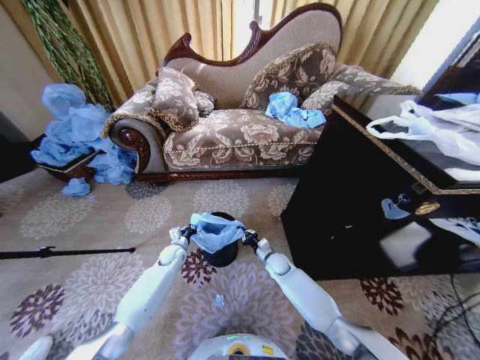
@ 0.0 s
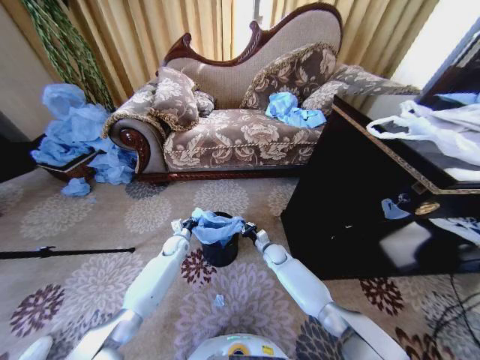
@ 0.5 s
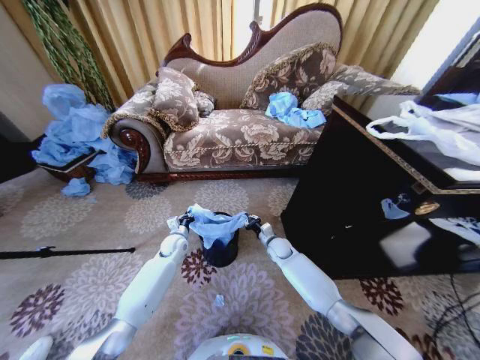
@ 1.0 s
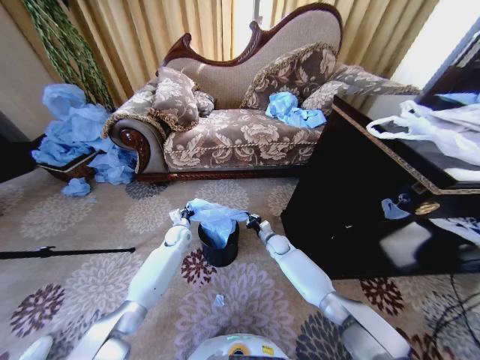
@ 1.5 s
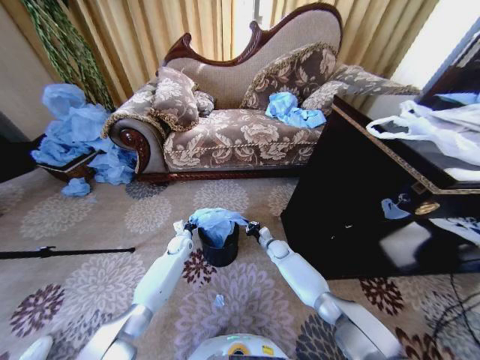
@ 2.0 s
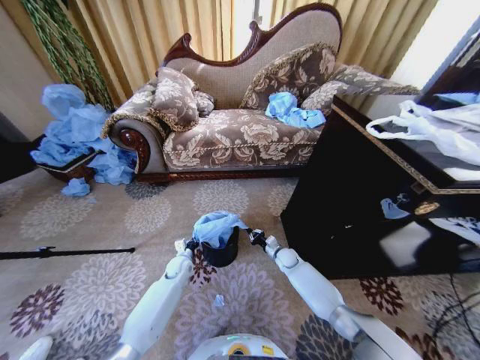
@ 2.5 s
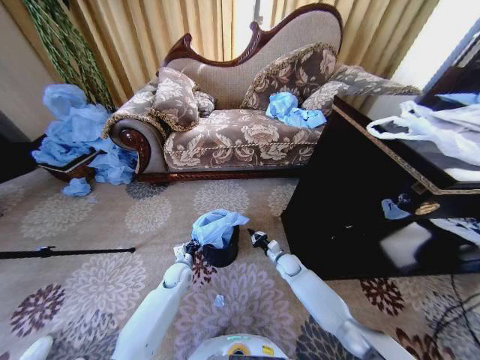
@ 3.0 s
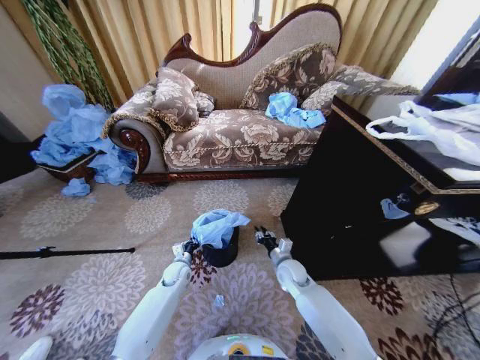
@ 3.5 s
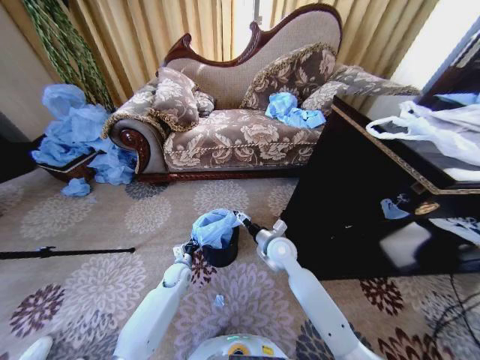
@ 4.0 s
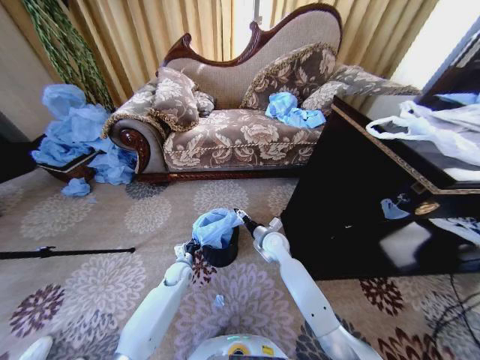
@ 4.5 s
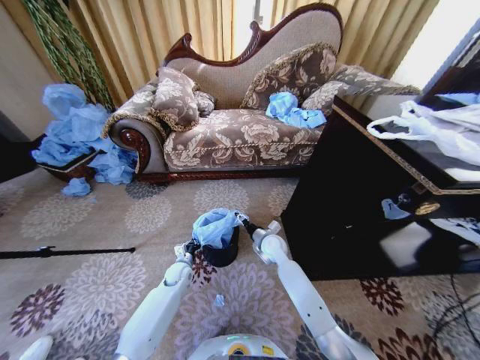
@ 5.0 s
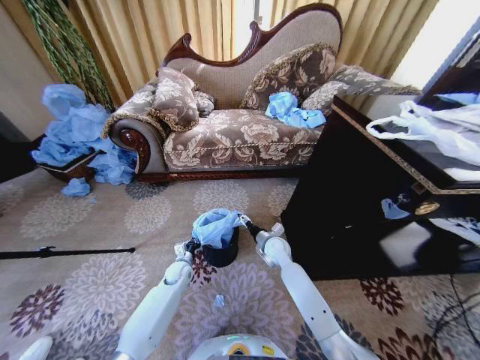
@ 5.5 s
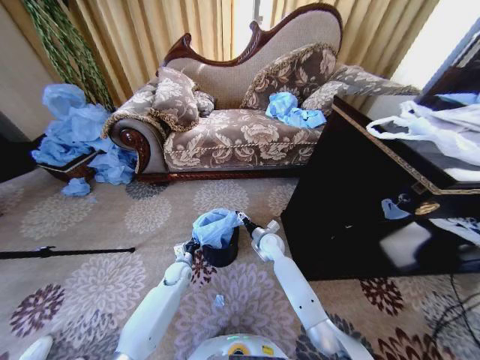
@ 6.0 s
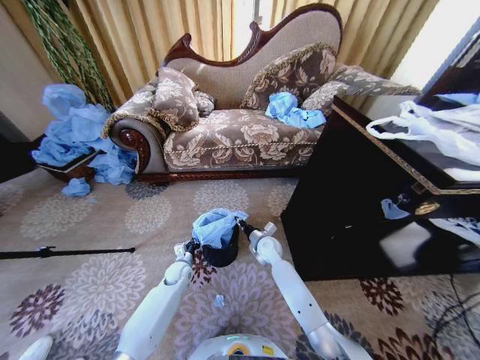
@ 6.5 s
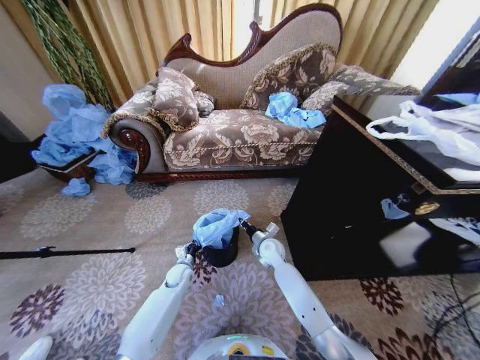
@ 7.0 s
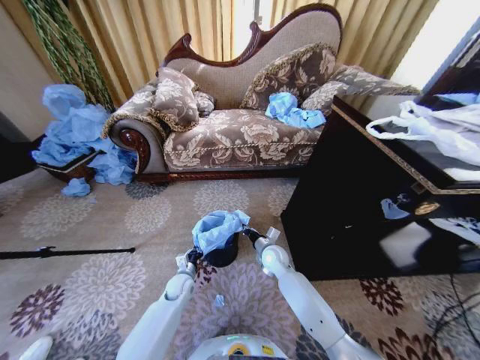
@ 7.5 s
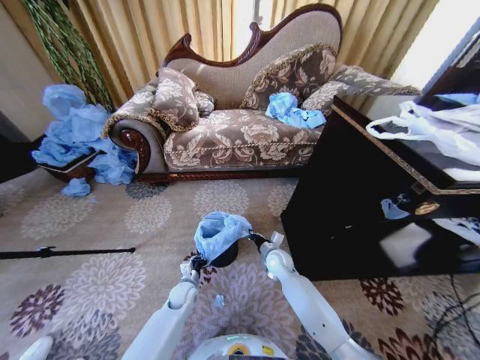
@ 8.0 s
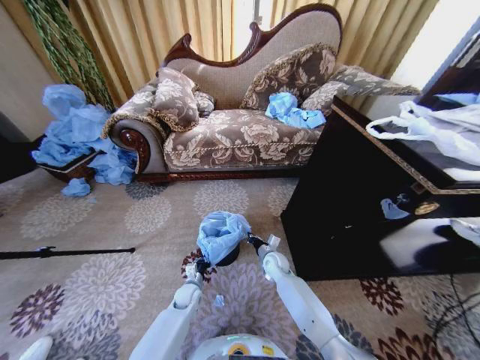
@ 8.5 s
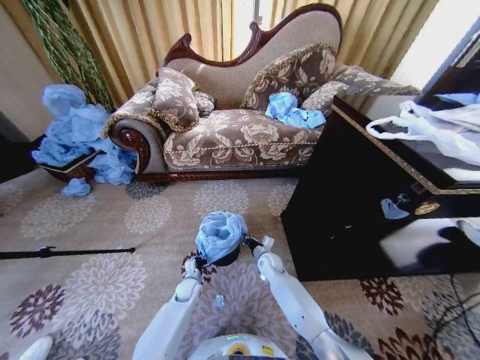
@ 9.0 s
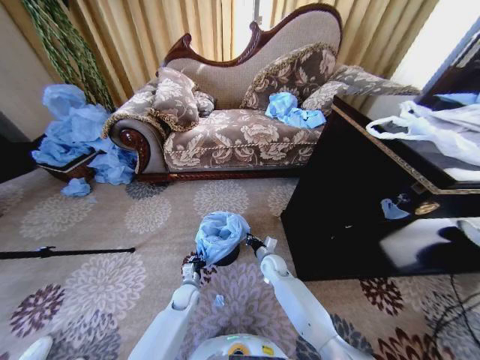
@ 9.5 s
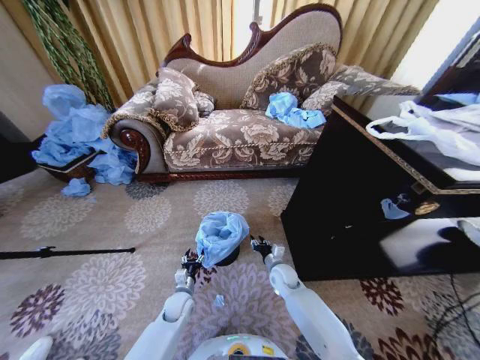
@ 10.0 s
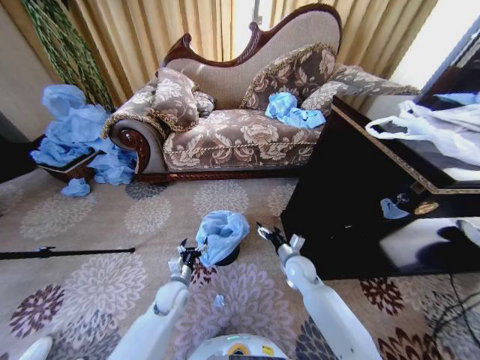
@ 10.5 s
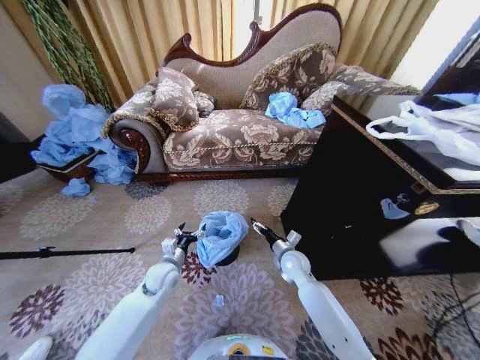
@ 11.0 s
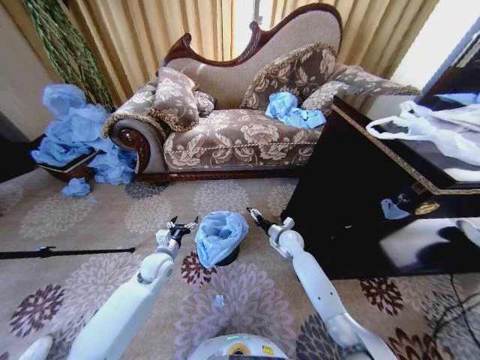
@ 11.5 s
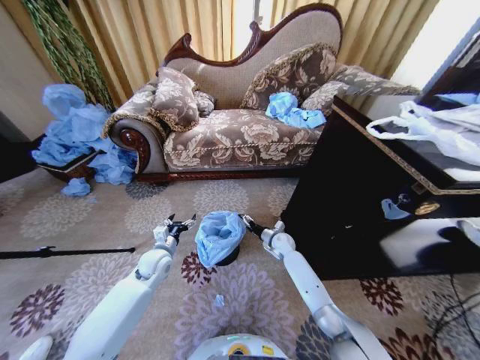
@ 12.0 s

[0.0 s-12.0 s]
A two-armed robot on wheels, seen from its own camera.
Task of the whole recording: Place a garbage bag over the trash bin.
0.0 to 2.0 s: The right gripper heads forward, covering about 5 cm.
2.0 to 4.0 s: The left gripper shifts roughly 10 cm backward; the right gripper is displaced upward and backward by some 20 cm, and opens.
4.0 to 6.0 s: The right gripper goes about 10 cm downward and forward.
6.0 to 8.0 s: The right gripper moves about 5 cm, and closes. The left gripper moves backward, approximately 5 cm.
8.0 to 10.0 s: The left gripper opens, while the right gripper changes place by approximately 5 cm, and opens.
10.0 to 12.0 s: The left gripper travels upward, forward and to the left by approximately 20 cm. The right gripper shifts approximately 10 cm forward, and opens.

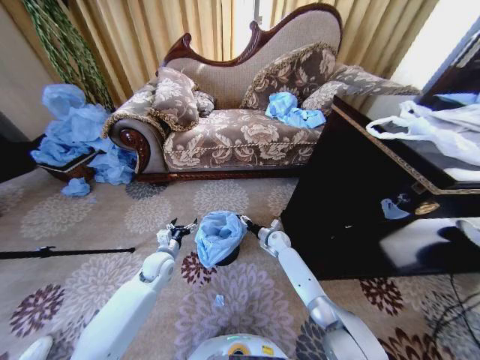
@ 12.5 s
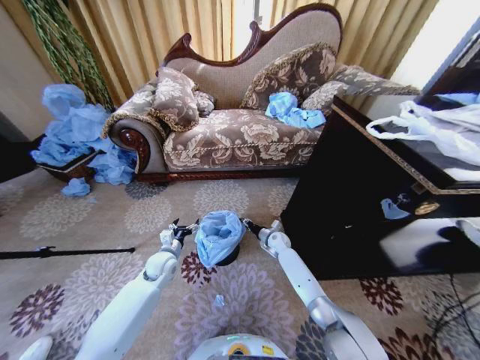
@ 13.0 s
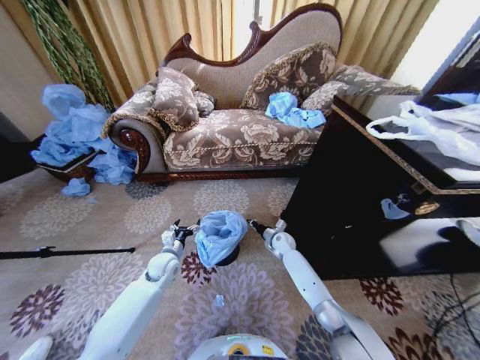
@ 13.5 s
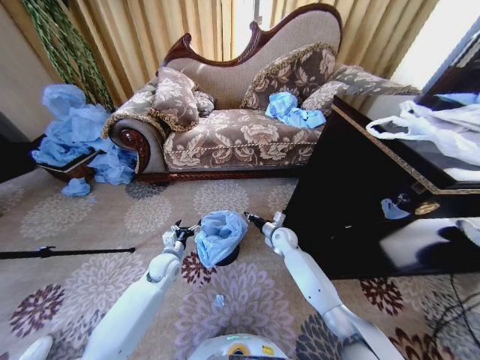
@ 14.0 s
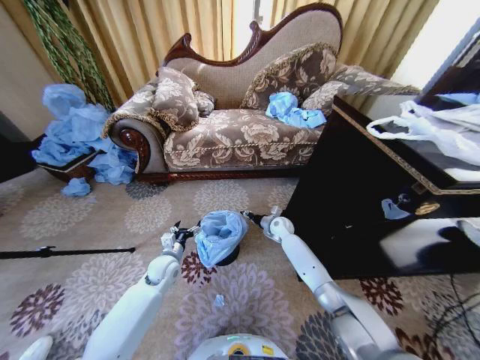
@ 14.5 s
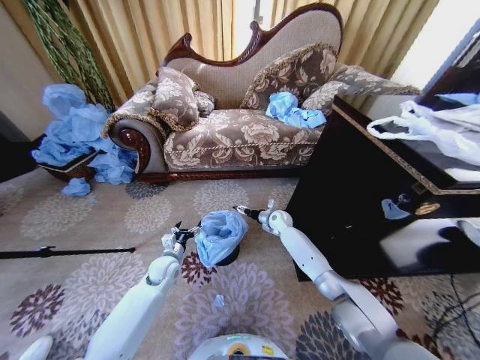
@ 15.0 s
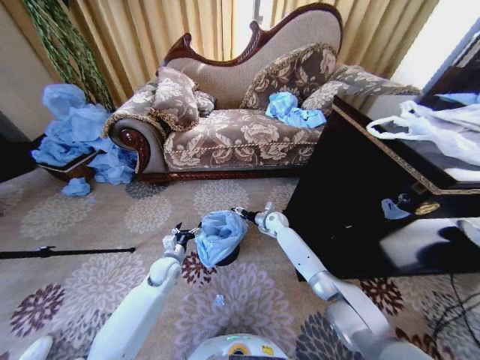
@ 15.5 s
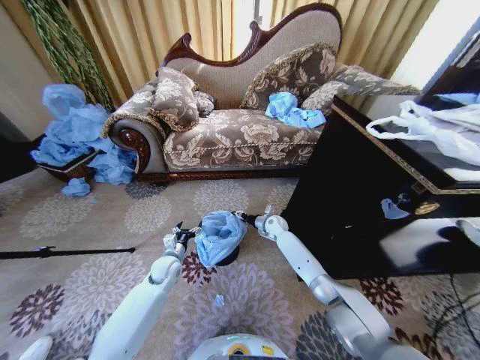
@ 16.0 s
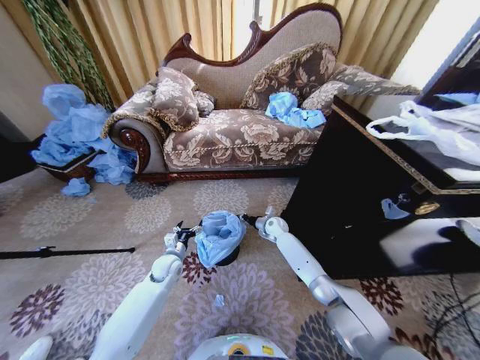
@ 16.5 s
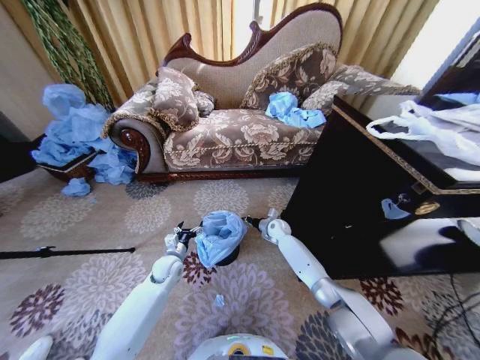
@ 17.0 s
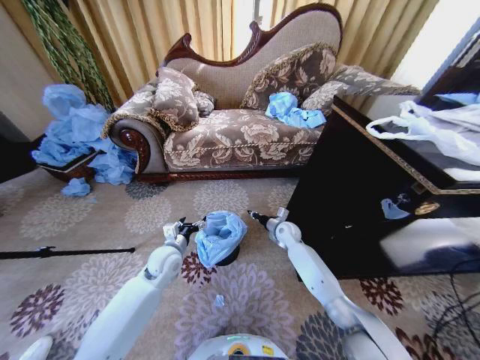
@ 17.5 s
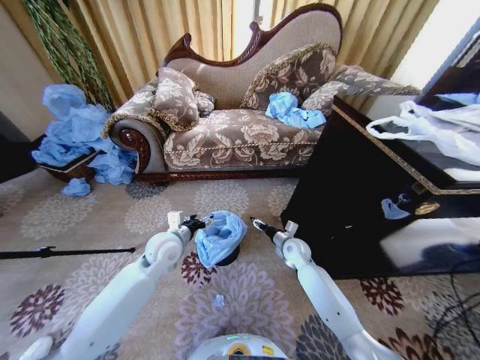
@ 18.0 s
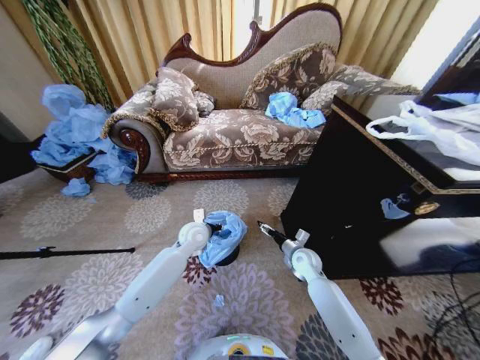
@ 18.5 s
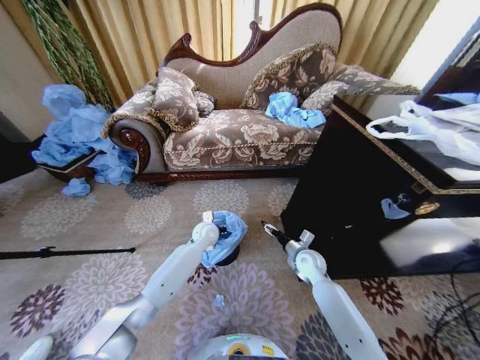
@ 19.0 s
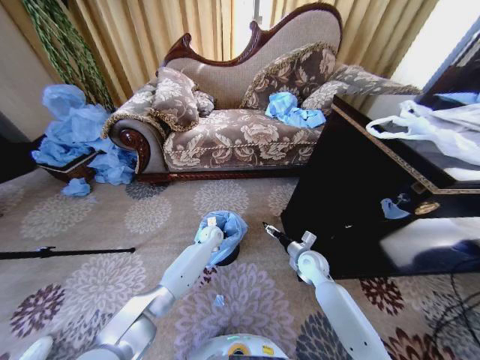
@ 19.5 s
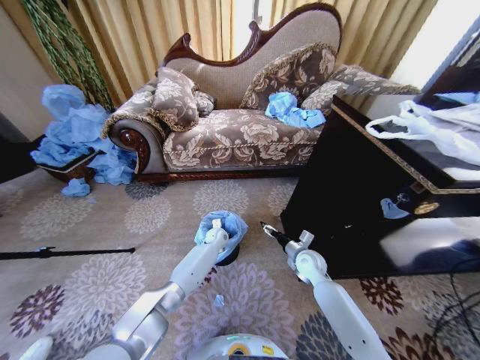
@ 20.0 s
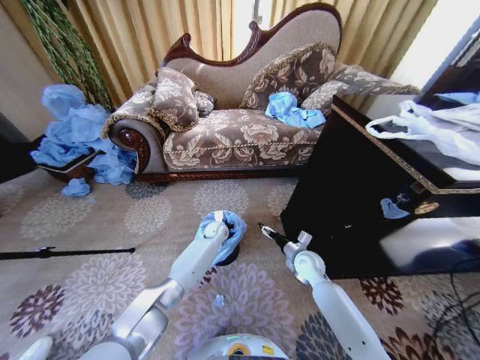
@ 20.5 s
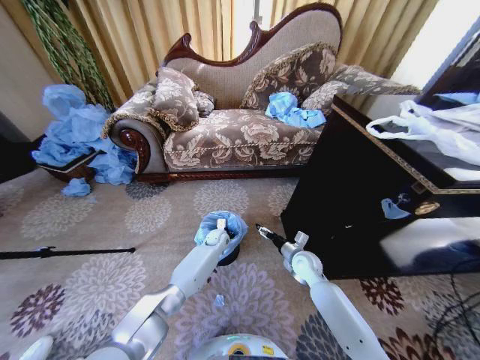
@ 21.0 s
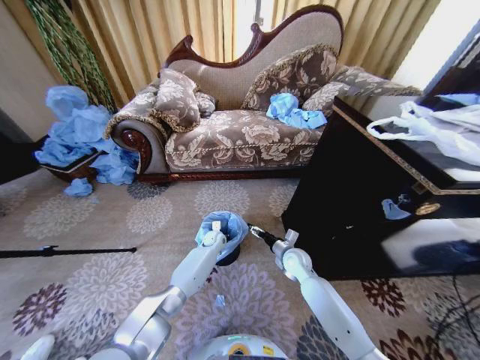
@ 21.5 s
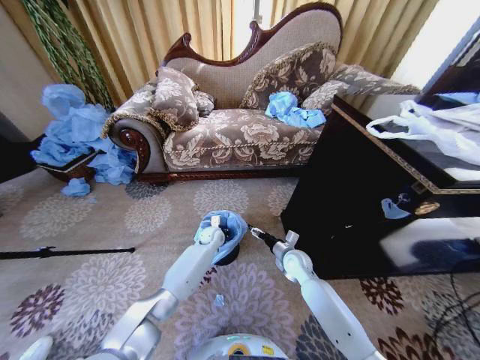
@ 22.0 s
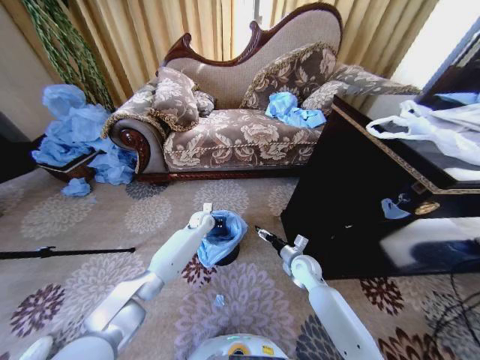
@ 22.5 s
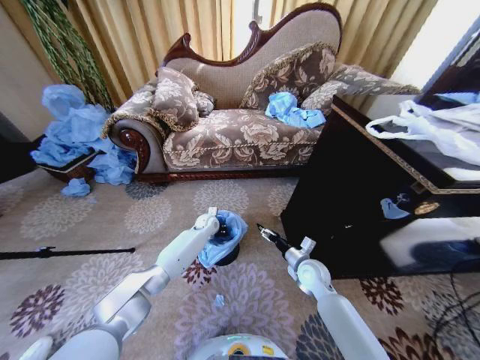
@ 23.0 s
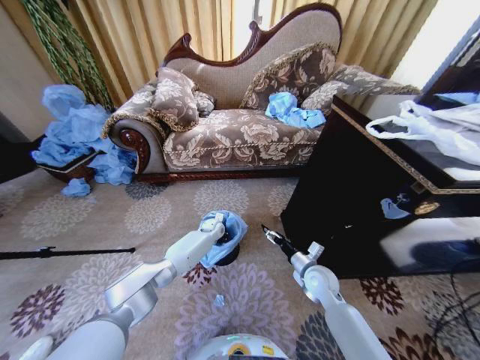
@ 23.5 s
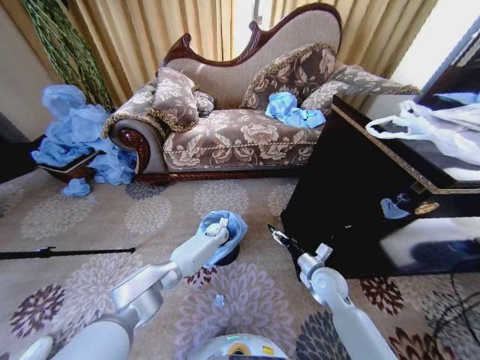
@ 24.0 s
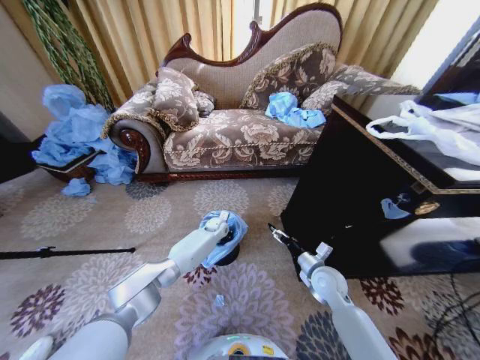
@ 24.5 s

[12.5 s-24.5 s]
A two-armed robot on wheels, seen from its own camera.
Task of the whole recording: Place a garbage bag over the trash bin.
12.5 to 14.5 s: The right gripper goes roughly 5 cm upward, and closes up.
14.5 to 16.5 s: The right gripper opens and closes again.
16.5 to 18.5 s: The right gripper heads backward and to the right, covering some 15 cm, and opens its fingers. Meanwhile the left gripper moves upward, to the right and forward, roughly 15 cm, and closes.
18.5 to 20.5 s: The left gripper travels downward, forward and to the right by roughly 15 cm, and closes its fingers.
20.5 to 22.5 s: The left gripper moves to the left, some 5 cm.
22.5 to 24.5 s: The left gripper is displaced to the right and downward by approximately 10 cm; the right gripper moves backward, approximately 5 cm.

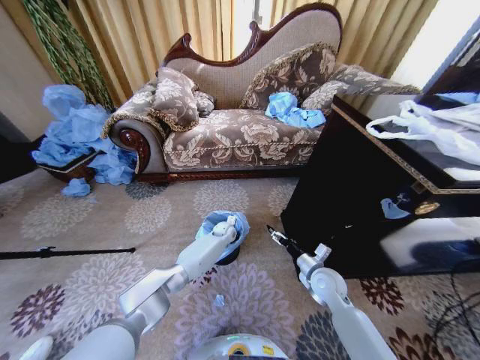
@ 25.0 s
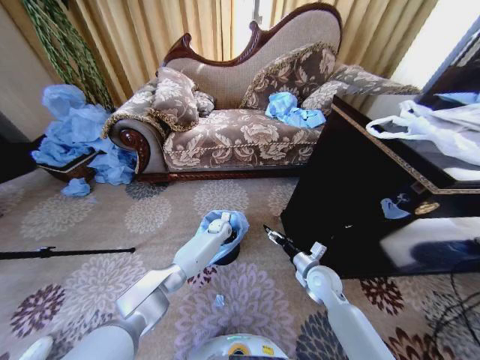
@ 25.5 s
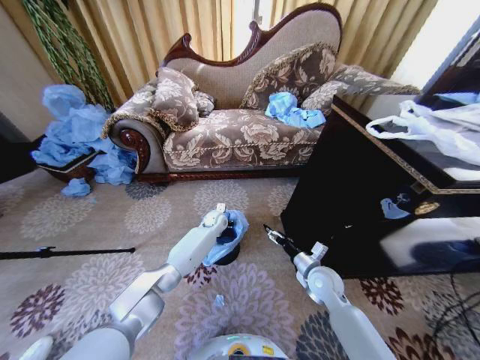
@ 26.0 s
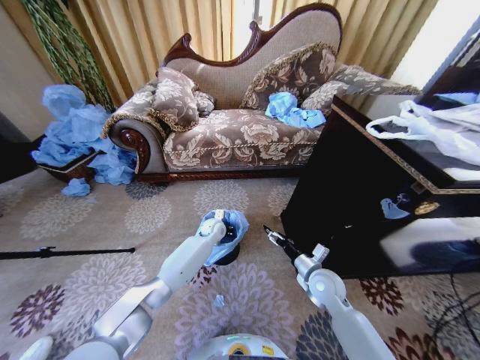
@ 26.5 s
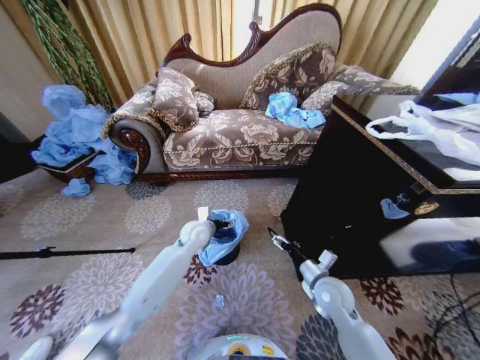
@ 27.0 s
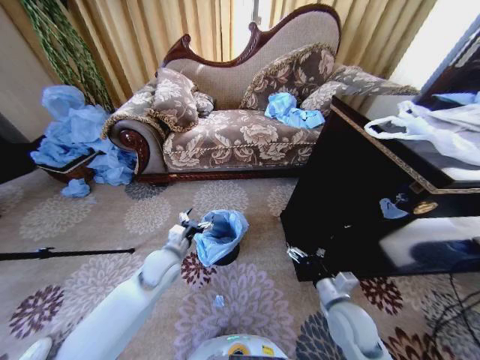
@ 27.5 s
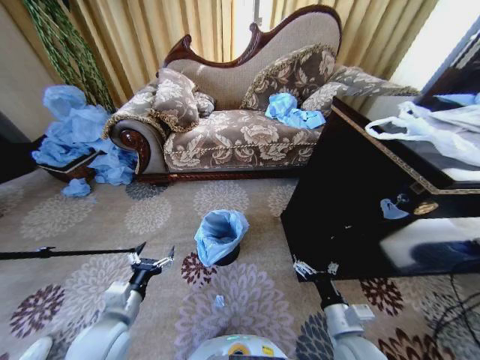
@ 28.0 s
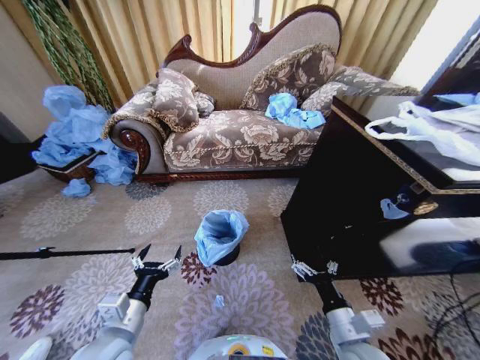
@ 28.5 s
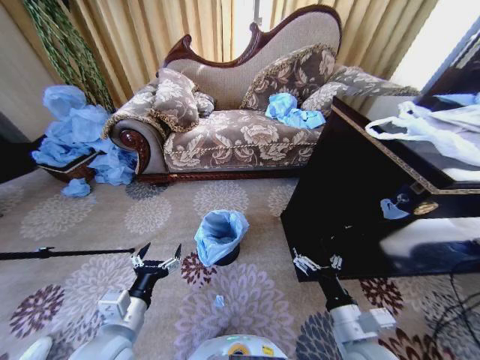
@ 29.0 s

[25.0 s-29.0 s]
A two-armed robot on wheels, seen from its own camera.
Task of the whole recording: Place a garbage bag over the trash bin.
25.0 to 27.0 s: The left gripper heads upward, backward and to the left, covering approximately 20 cm, and opens up.
27.0 to 29.0 s: The left gripper travels backward by about 30 cm. Meanwhile the right gripper heads backward, covering approximately 15 cm.
